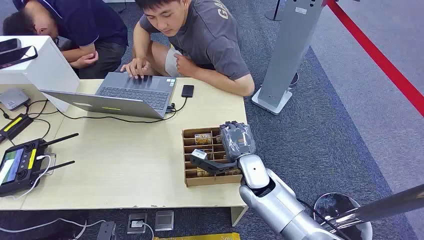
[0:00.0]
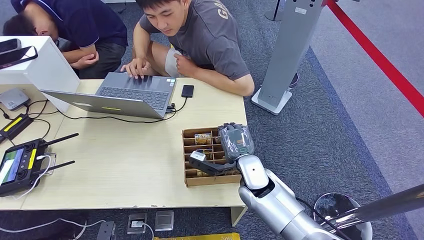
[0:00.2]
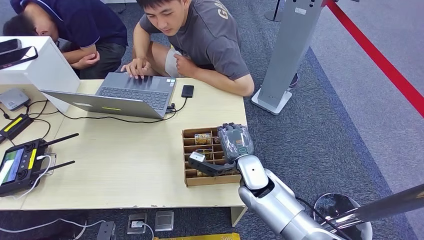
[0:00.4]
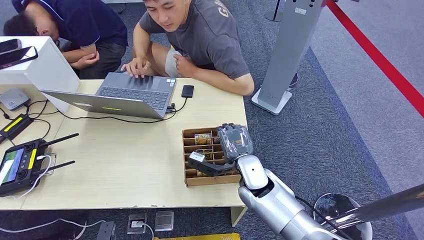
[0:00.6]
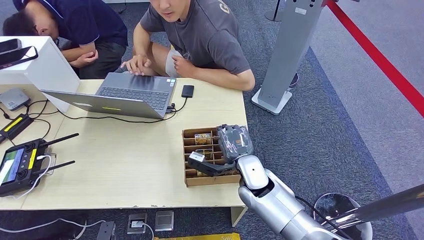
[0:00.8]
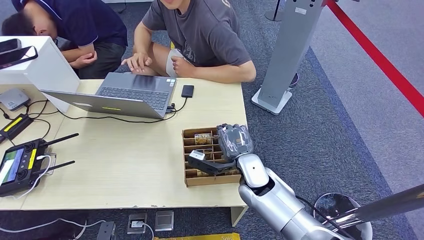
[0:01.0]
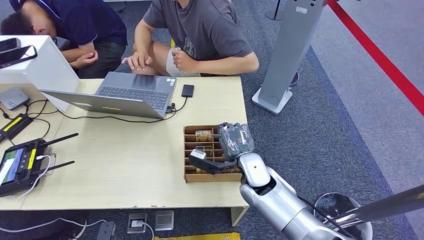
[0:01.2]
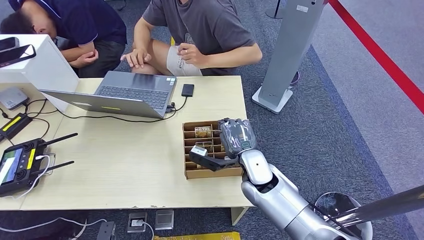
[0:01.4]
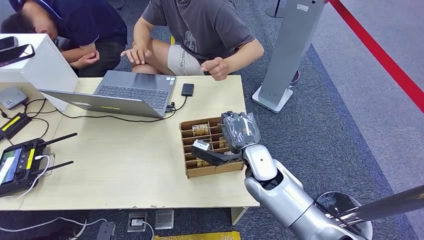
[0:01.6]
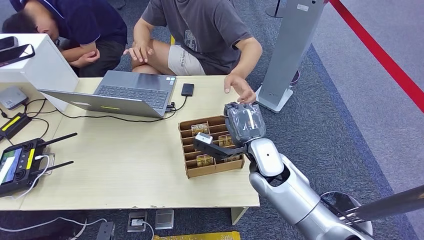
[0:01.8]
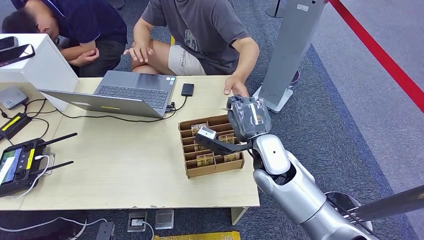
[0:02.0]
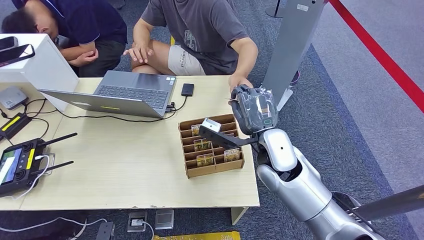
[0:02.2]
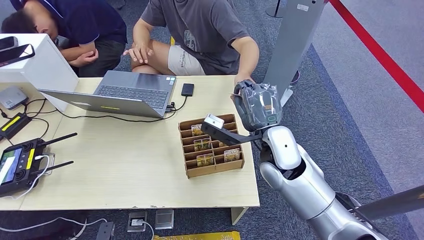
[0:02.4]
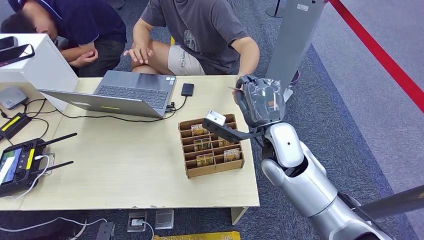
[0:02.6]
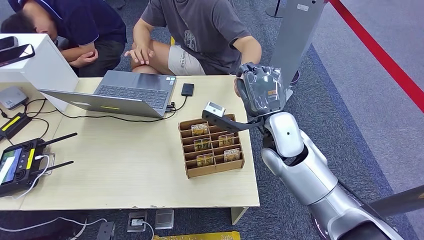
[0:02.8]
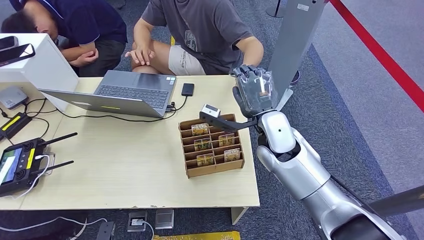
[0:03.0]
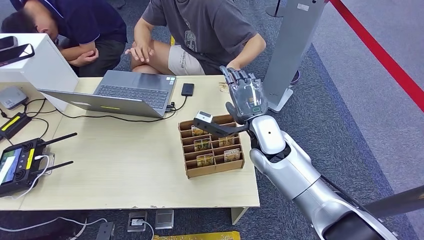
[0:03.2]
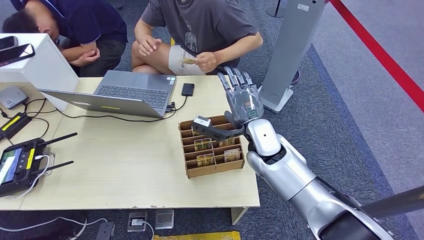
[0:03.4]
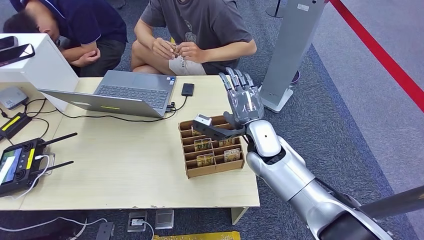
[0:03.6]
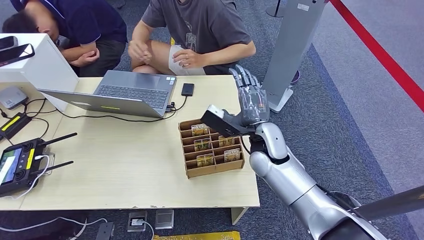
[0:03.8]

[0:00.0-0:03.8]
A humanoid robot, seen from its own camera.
Step, 0:00.0 to 0:01.8: Pick up the key card from the card box.
Step, 0:02.0 to 0:03.8: Hand the key card to the target.
0:02.6 to 0:03.8: The right hand changes place by some 5 cm.
